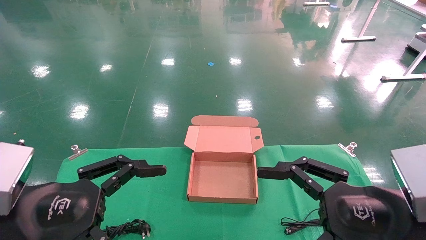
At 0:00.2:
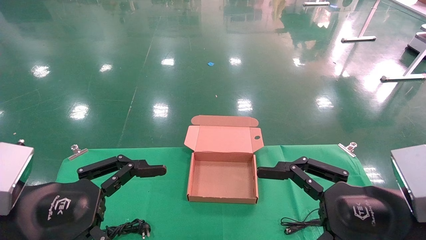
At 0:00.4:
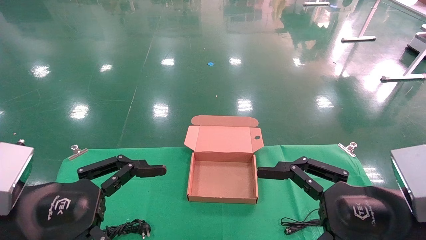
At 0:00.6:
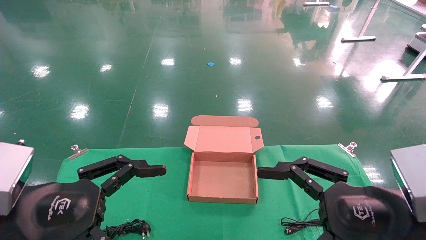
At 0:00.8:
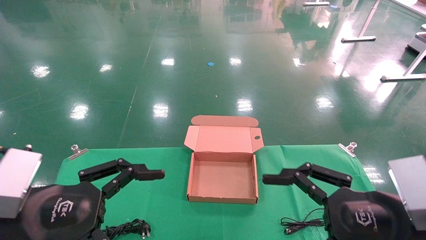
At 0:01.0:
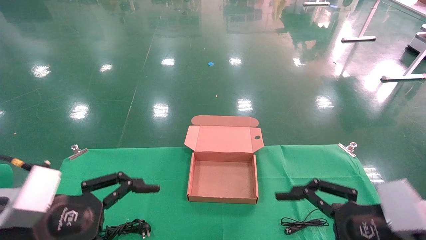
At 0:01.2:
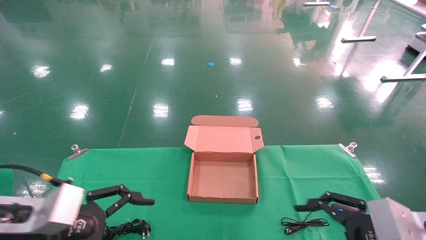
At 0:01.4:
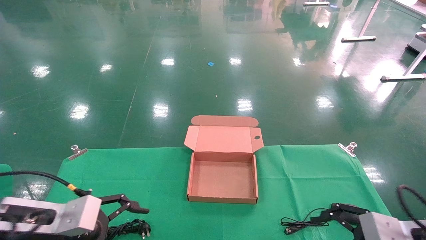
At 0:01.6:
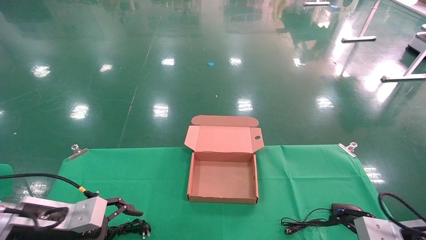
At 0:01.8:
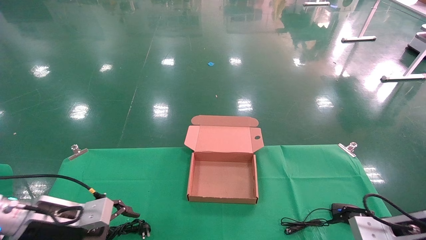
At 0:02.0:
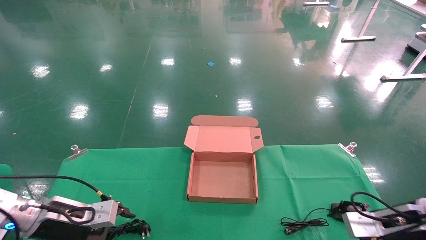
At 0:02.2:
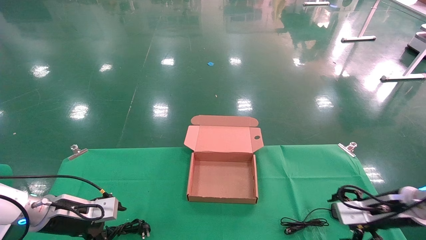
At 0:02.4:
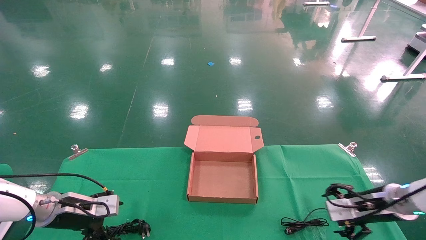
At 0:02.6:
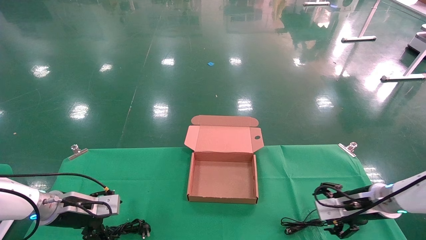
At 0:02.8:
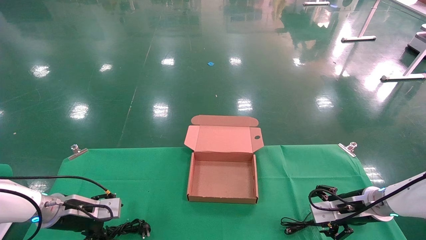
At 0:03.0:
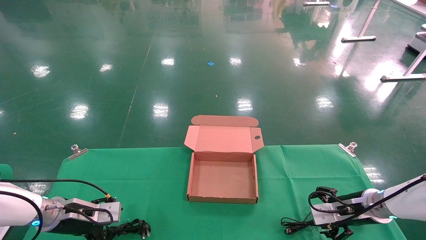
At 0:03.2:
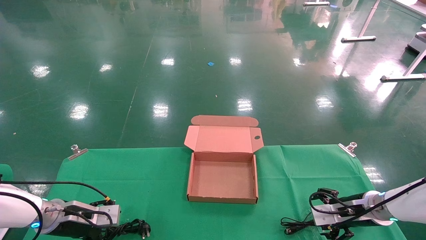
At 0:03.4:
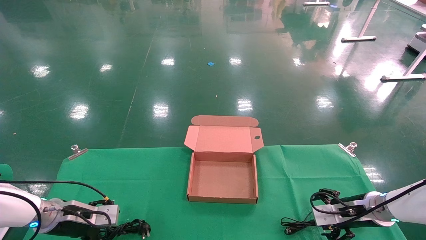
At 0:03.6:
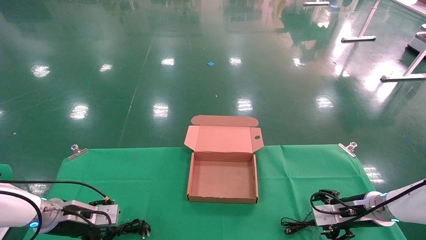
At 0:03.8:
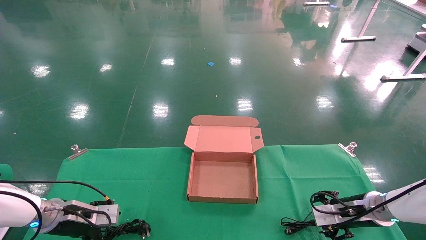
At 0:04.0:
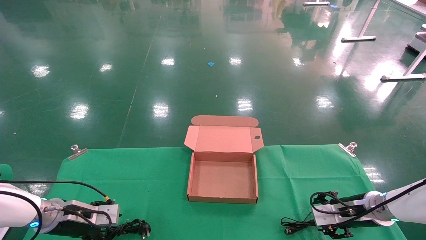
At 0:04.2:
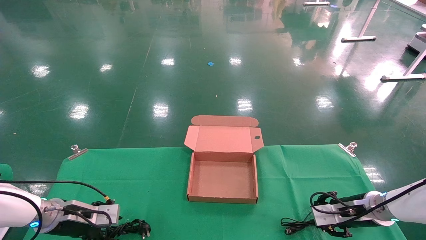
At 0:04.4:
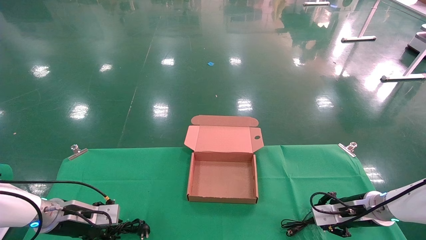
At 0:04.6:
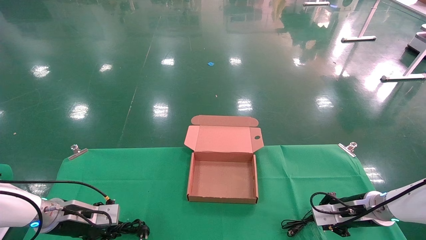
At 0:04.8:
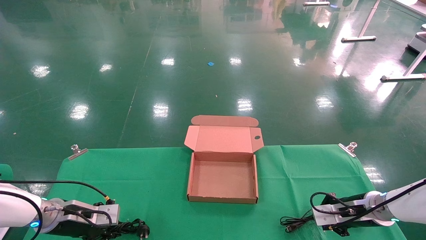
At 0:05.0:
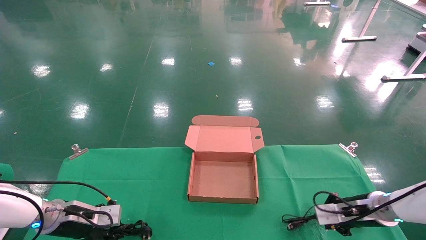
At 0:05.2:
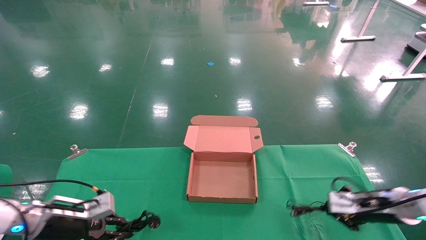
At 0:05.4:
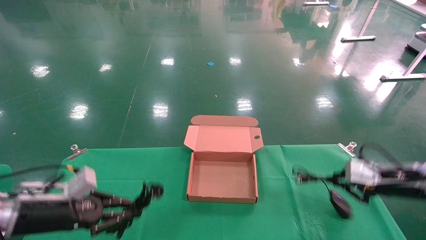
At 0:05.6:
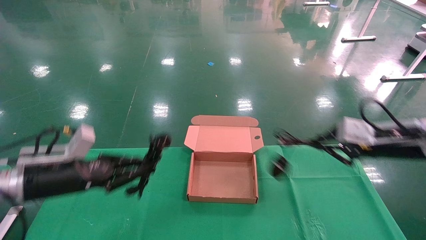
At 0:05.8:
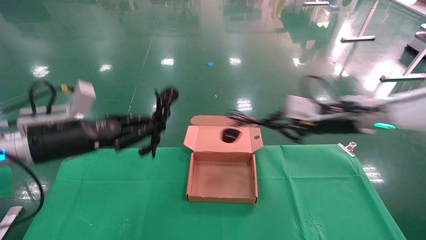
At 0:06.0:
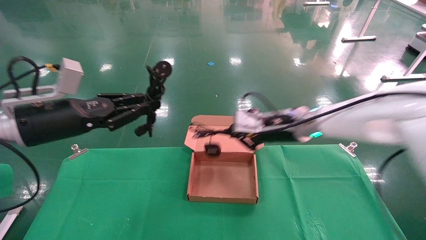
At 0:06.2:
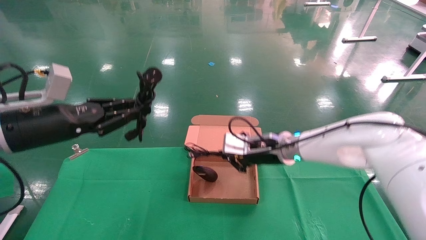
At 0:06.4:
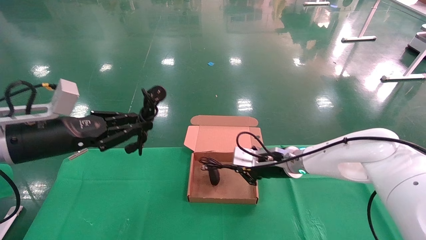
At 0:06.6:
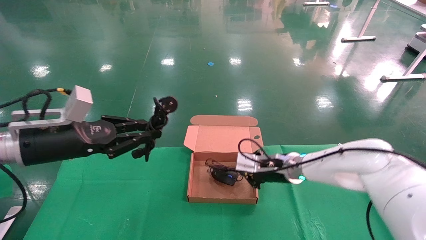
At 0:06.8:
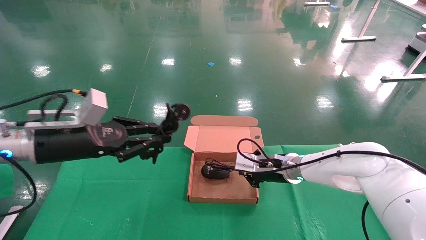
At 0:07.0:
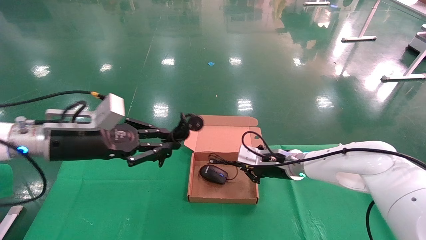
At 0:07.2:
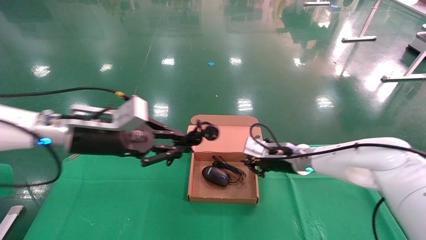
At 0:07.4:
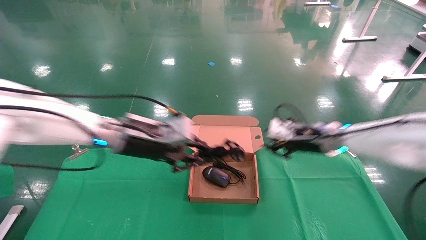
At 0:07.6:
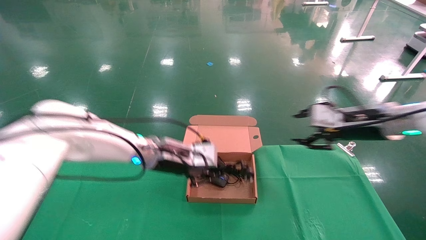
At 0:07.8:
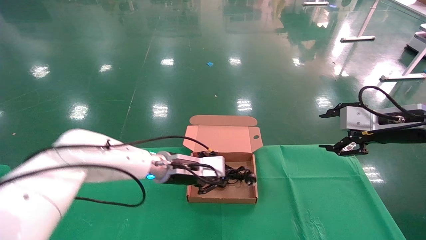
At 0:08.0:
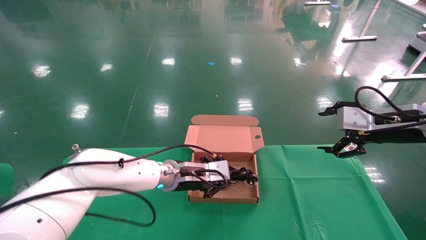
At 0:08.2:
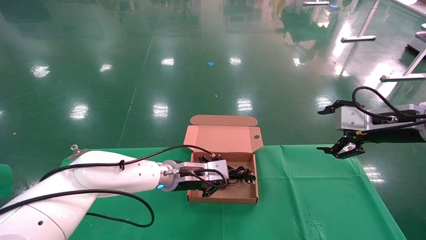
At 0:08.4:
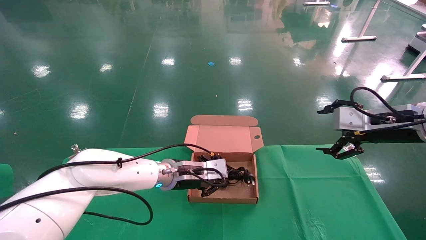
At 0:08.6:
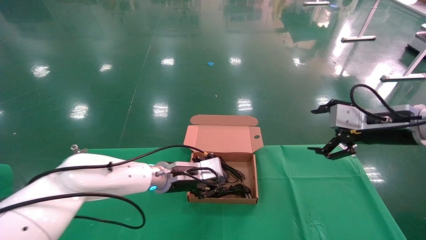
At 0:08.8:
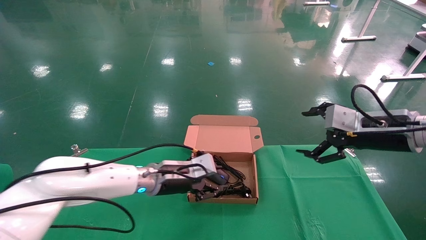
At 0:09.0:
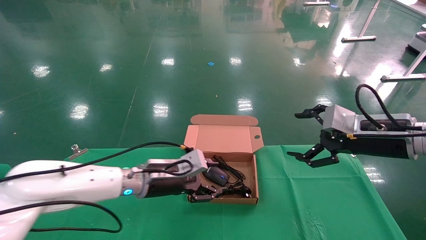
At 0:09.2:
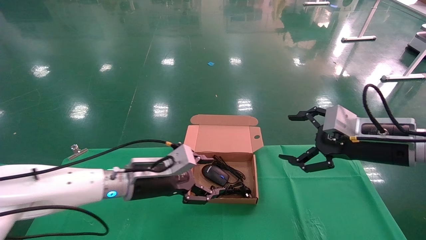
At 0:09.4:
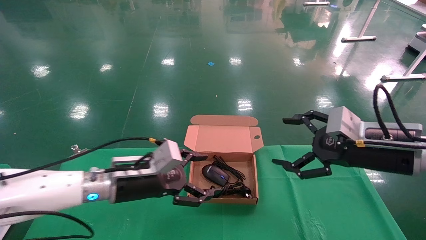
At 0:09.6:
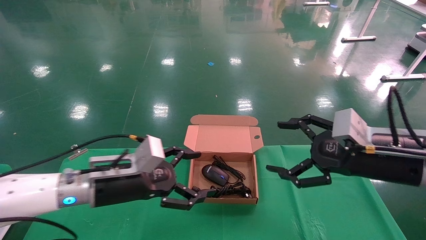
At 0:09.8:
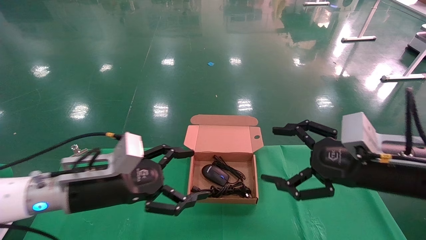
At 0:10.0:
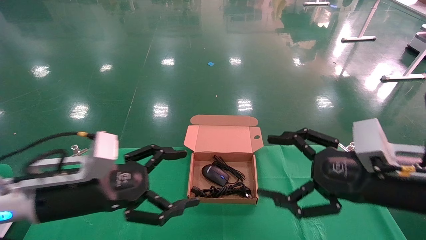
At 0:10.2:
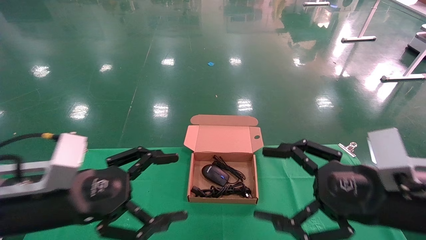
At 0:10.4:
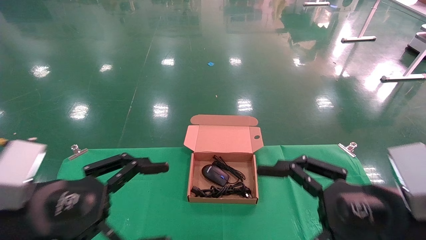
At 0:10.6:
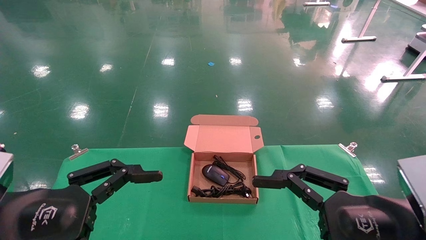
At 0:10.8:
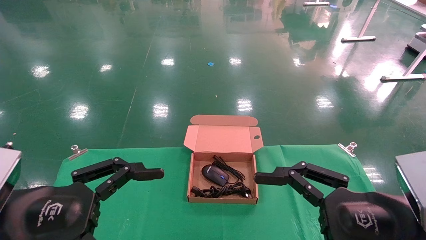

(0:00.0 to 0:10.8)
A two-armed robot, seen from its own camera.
Step, 0:00.8 - 0:04.6: Grab and lift both the mouse and power cord from the accessory packaging area at the same time.
Step, 0:04.8 - 0:08.2: Place the mouse and power cord into the box.
0:00.0 - 0:01.6: The left gripper is displaced forward and downward by some 15 cm, while the right gripper is displaced to the right, forward and downward by roughly 20 cm.
0:01.6 - 0:03.0: The left gripper travels forward and downward by some 15 cm; the right gripper moves forward, approximately 15 cm.
0:03.0 - 0:04.6: The left gripper closes up, while the right gripper closes up.
0:04.6 - 0:06.2: The right gripper is displaced to the left and upward by roughly 25 cm. Meanwhile the left gripper moves upward, some 20 cm.
0:06.2 - 0:07.8: The left gripper heads to the right, forward and downward, covering some 25 cm, while the right gripper shifts some 20 cm to the right and upward, and opens its fingers.
0:07.8 - 0:09.2: The right gripper moves approximately 5 cm, and opens. Meanwhile the left gripper travels backward and to the left by roughly 10 cm, and opens its fingers.
0:09.2 - 0:10.8: The right gripper heads backward, covering about 15 cm. Meanwhile the left gripper travels backward and to the left by roughly 25 cm, and opens its fingers.

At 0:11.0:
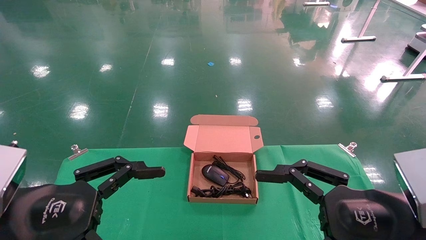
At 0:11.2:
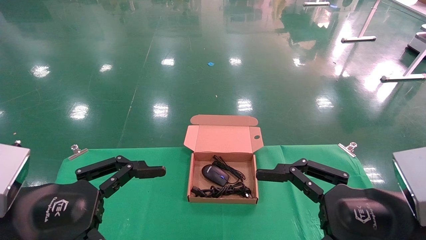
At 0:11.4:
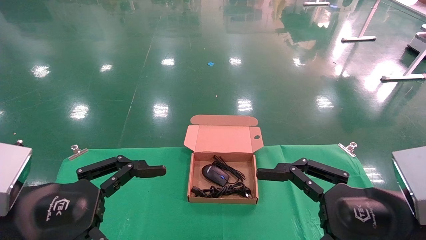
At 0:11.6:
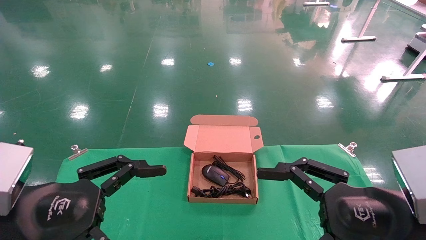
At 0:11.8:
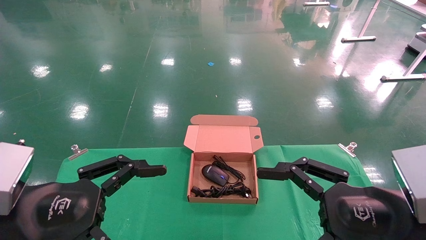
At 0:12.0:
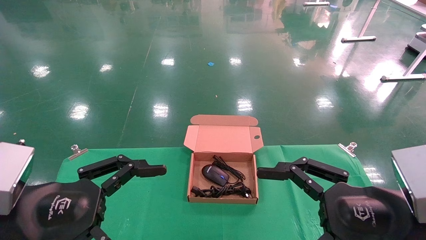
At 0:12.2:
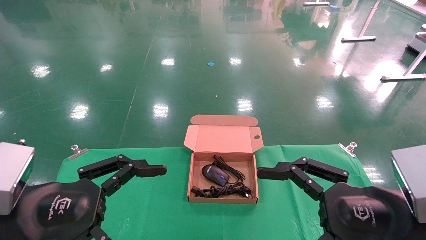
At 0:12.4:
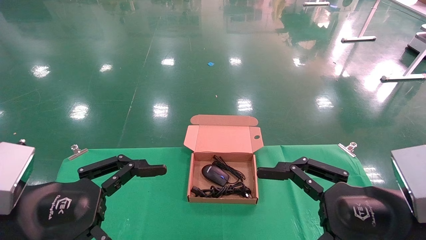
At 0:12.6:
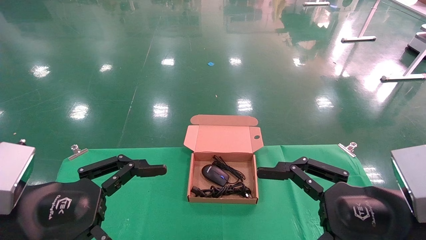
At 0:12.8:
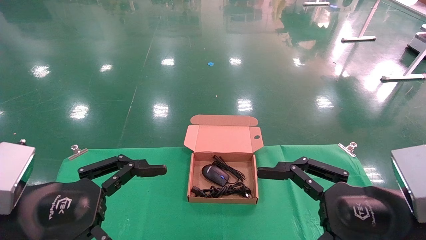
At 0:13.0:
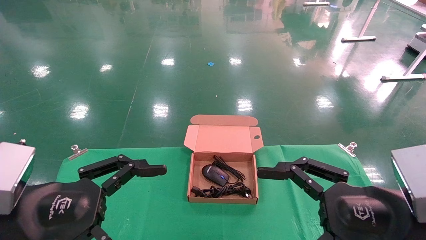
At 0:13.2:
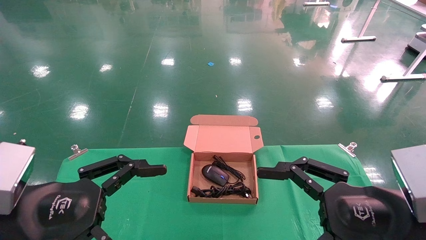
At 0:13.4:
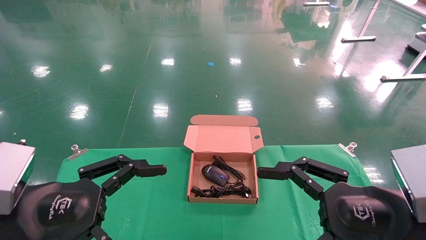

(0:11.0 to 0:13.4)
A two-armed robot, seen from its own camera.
0:11.0 - 0:13.4: Both grippers stay about where they are.
